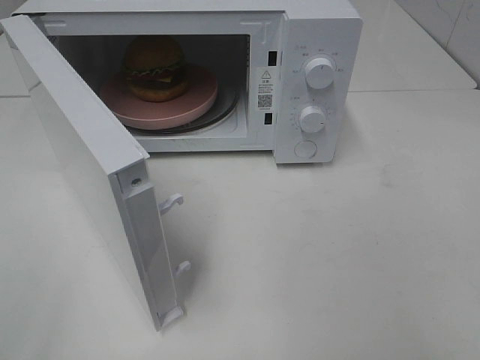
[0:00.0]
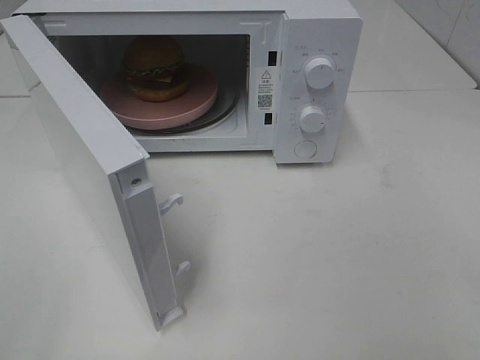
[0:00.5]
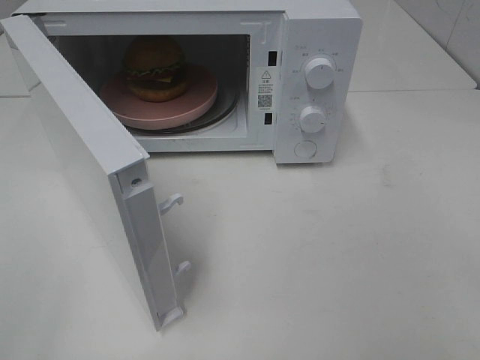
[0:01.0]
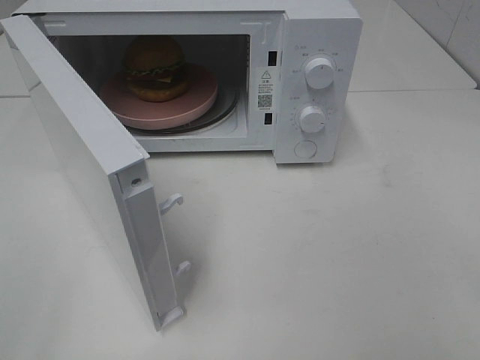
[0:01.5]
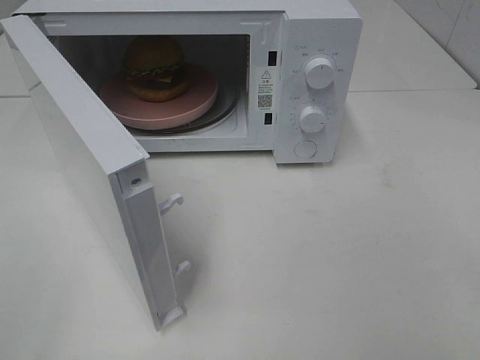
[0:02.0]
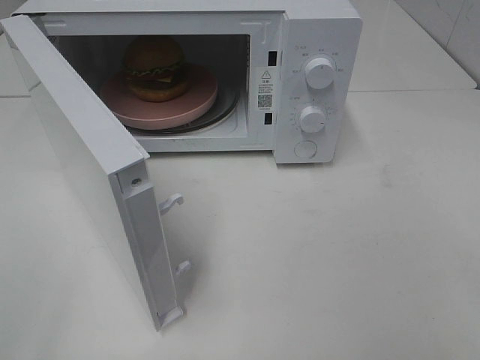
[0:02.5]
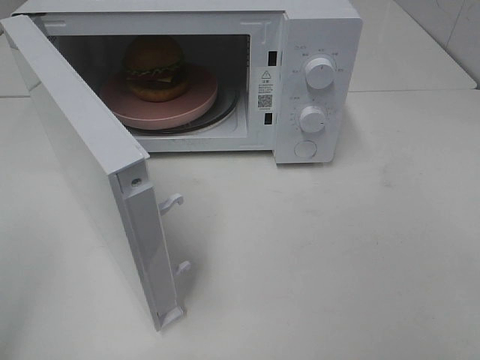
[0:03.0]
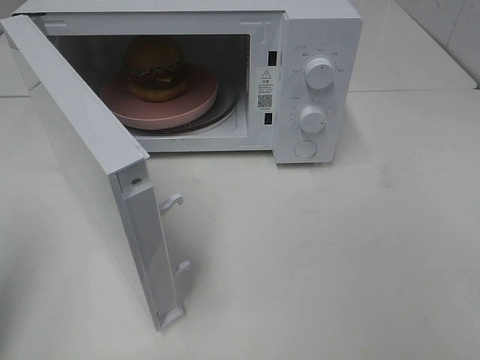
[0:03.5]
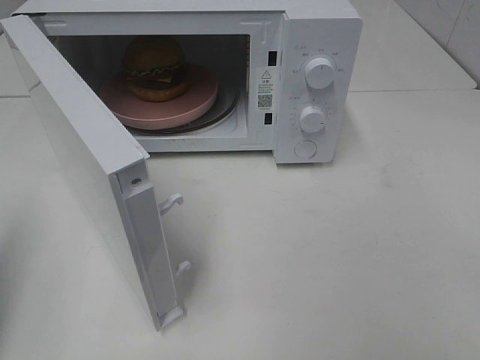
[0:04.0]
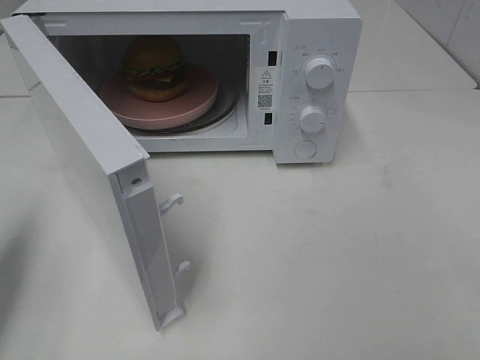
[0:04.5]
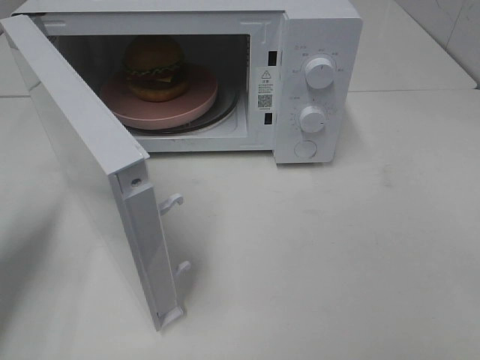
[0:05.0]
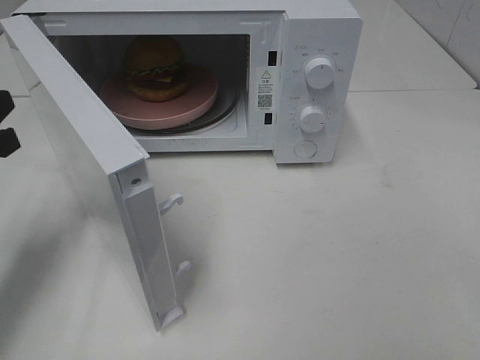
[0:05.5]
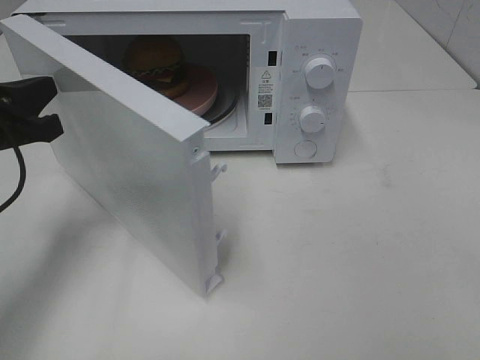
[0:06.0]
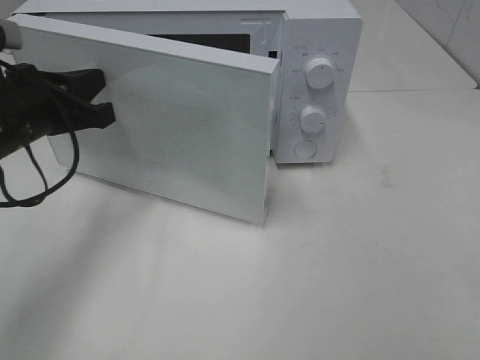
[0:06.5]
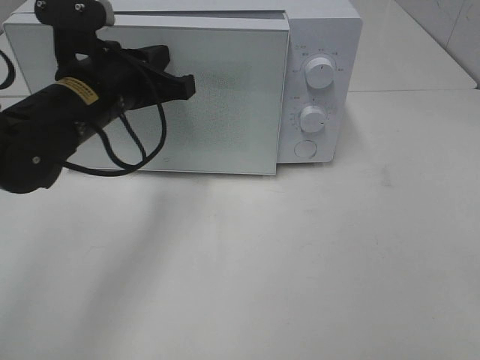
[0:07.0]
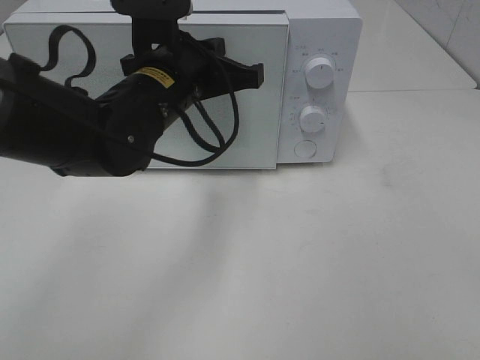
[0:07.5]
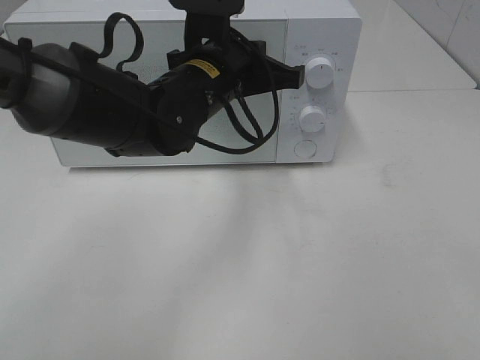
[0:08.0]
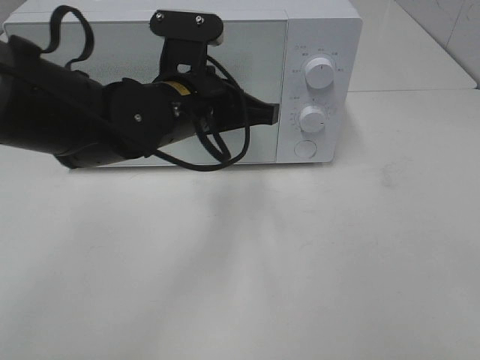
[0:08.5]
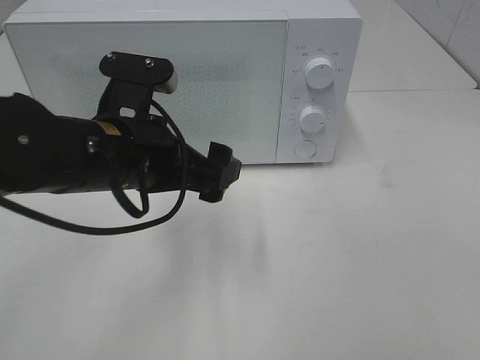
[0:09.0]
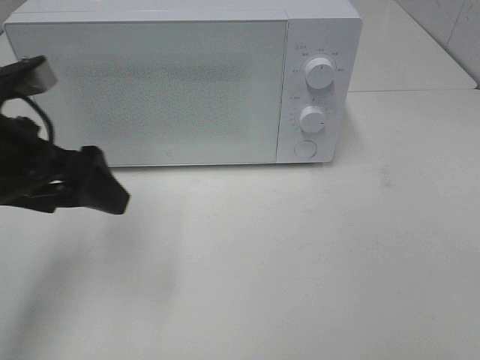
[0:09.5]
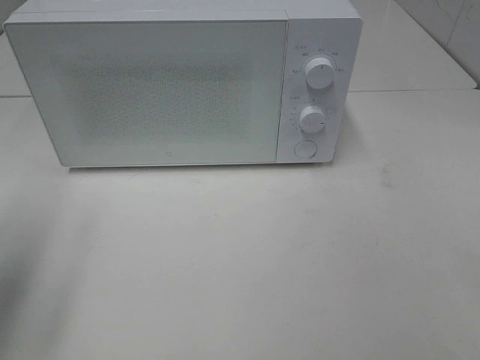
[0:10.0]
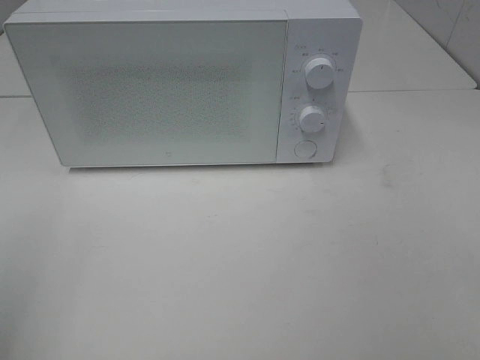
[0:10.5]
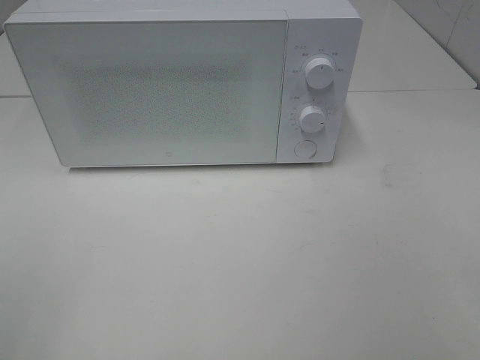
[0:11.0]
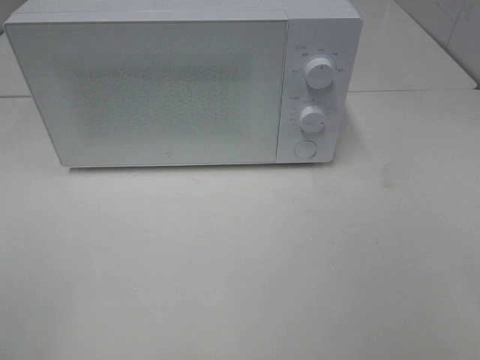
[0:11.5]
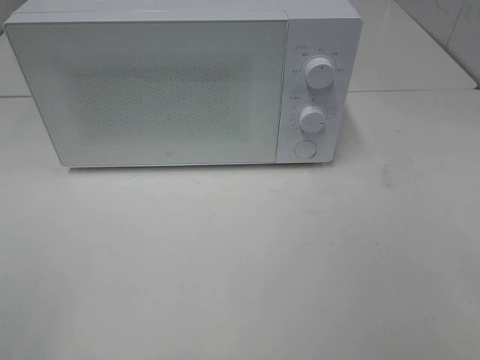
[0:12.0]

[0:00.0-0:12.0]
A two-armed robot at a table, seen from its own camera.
Task of the whole recording: Heat the burger.
Step, 0:00.0 to 0:08.5: Left hand: close the microwave door.
0:02.0 to 0:04.0: The left gripper heads forward, covering about 15 cm, and closes its fingers.
0:04.0 to 0:06.0: The left gripper shifts about 15 cm forward, to the right and downward.
0:06.0 to 0:08.0: The left gripper is displaced to the right by roughly 25 cm.
0:08.0 to 0:10.0: The left gripper heads to the left and backward, covering about 35 cm, and opens up.
0:10.0 to 0:12.0: The left gripper moves backward, about 20 cm.

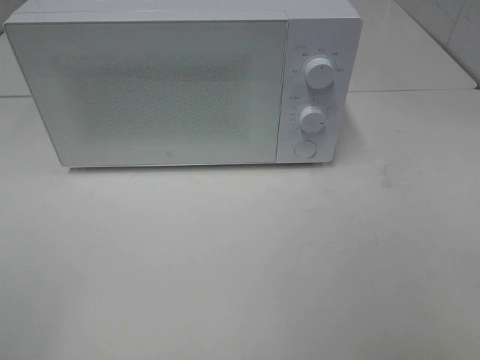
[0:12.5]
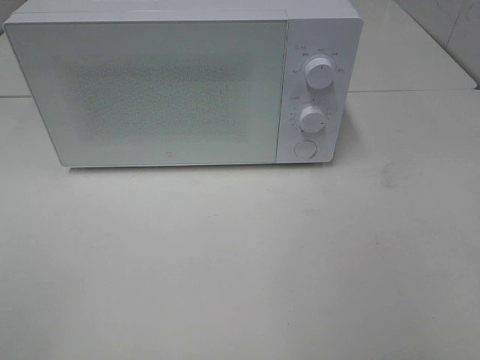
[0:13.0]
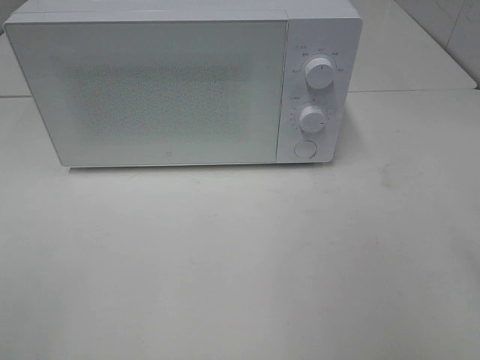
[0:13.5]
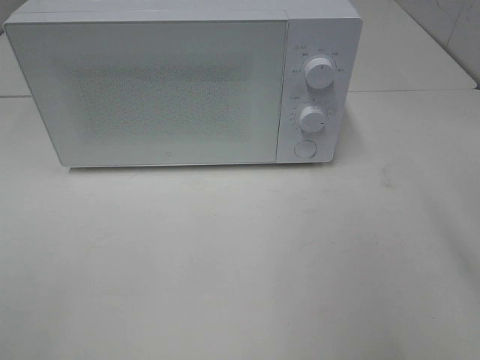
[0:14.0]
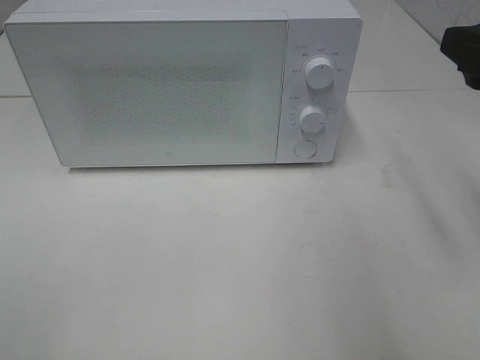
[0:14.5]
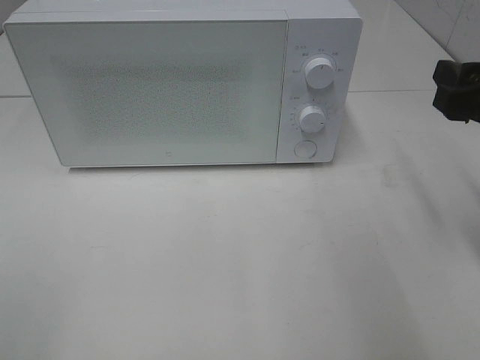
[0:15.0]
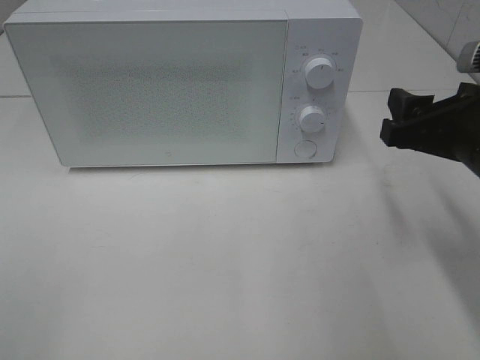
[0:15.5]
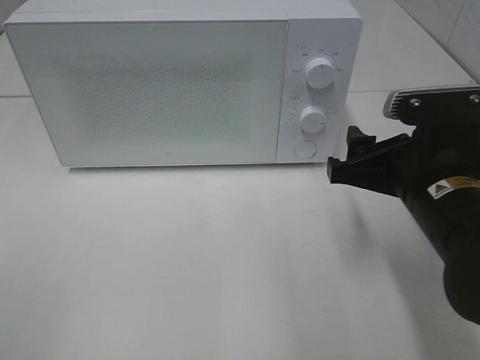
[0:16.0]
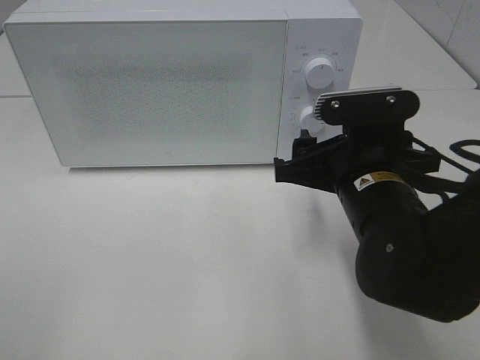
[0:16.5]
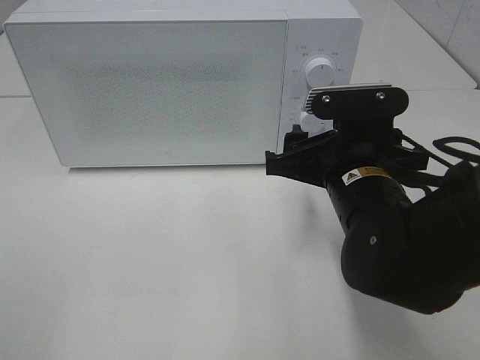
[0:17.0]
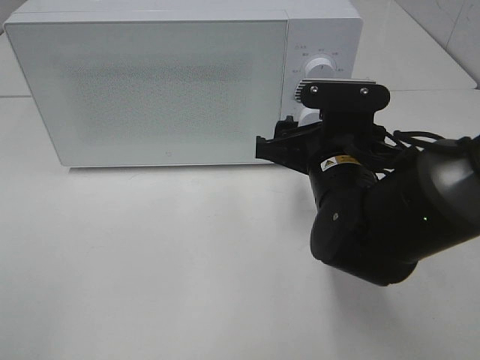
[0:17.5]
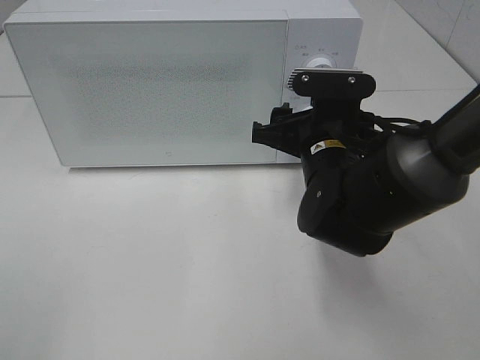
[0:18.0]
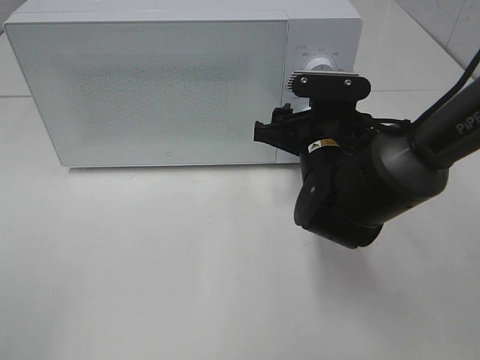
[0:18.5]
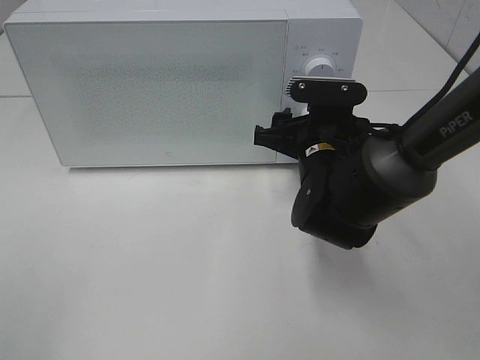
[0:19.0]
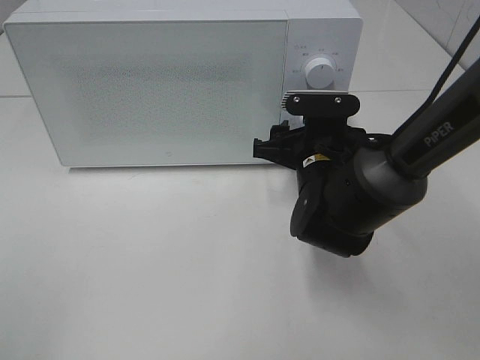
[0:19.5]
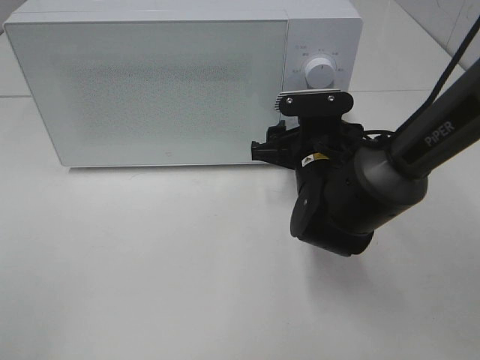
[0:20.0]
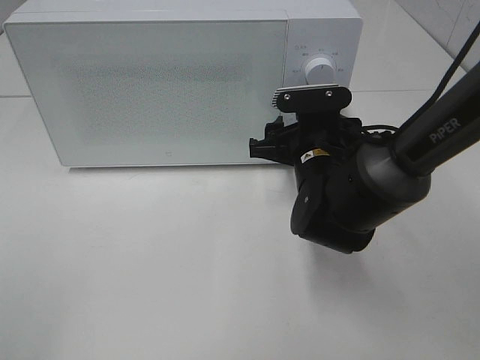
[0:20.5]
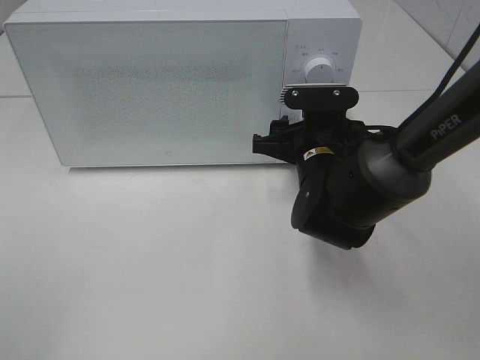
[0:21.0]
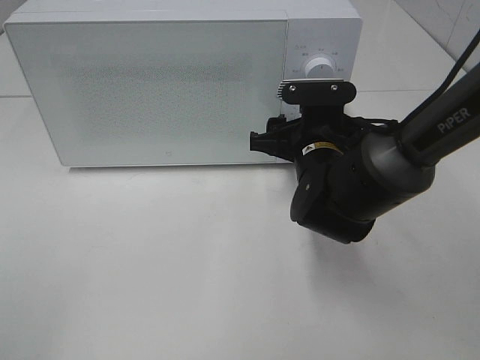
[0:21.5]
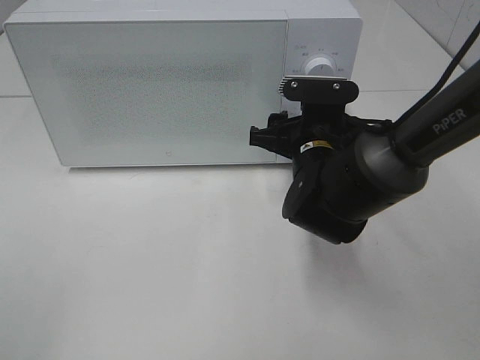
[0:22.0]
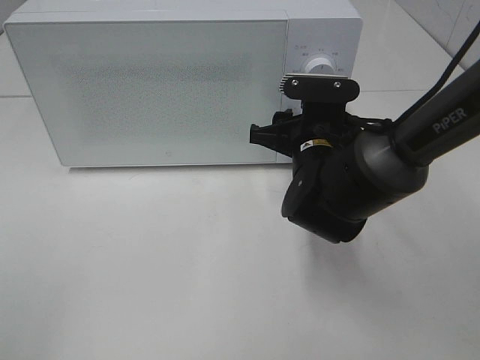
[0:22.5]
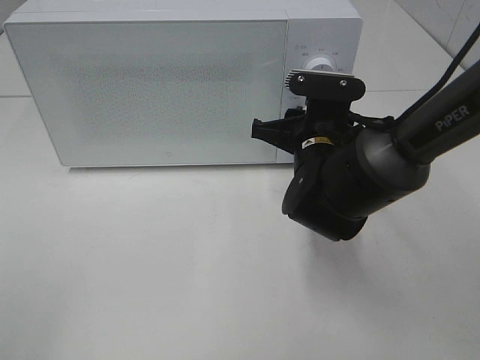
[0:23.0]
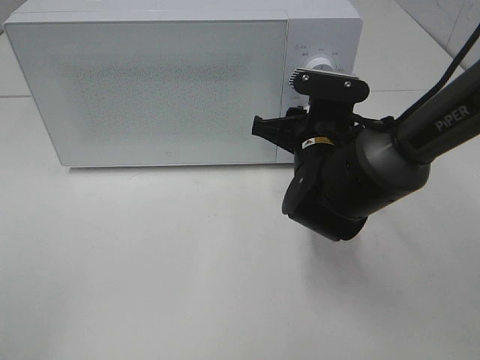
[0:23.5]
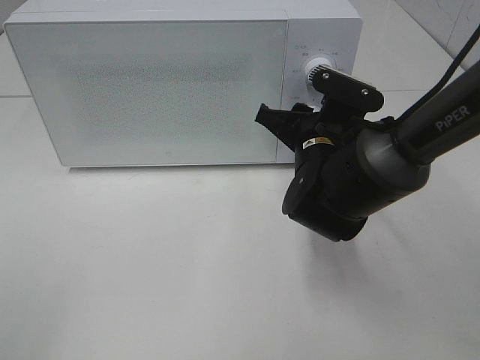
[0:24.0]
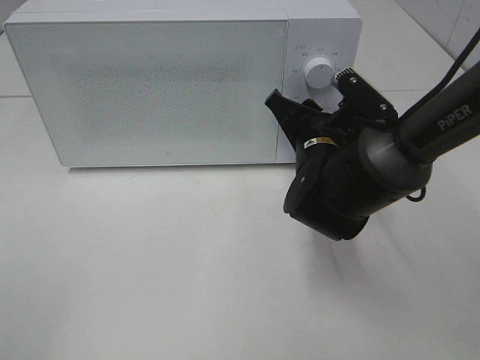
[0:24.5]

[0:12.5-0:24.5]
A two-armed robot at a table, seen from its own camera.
Task of the whole recording: Heat the burger.
0:12.5 to 0:14.5: The right gripper is displaced forward by approximately 20 cm.
0:14.5 to 0:16.5: The right gripper is displaced to the left and downward by about 20 cm.
0:16.5 to 0:18.5: The right gripper is displaced forward by some 10 cm.
0:18.5 to 0:22.5: The grippers make only small movements.

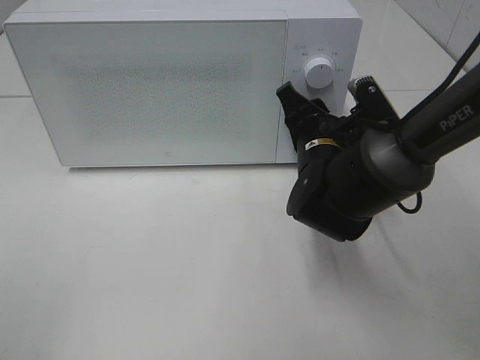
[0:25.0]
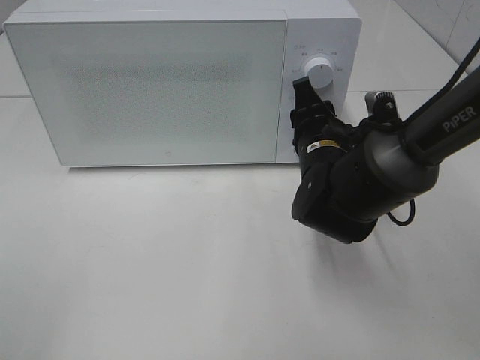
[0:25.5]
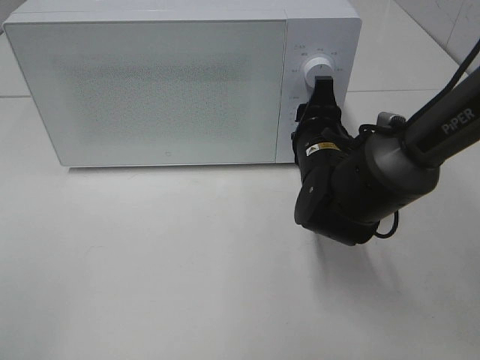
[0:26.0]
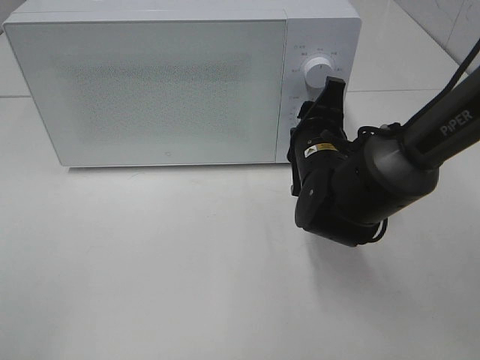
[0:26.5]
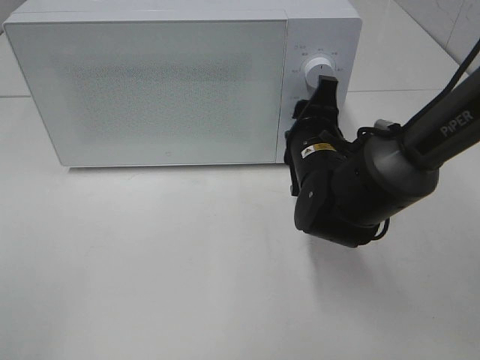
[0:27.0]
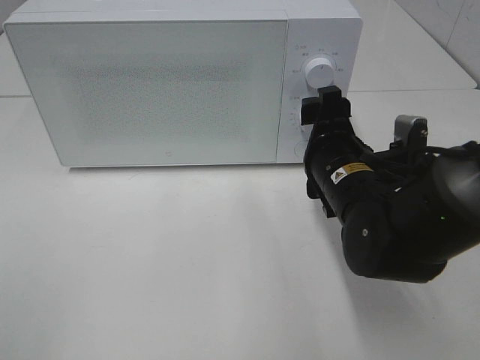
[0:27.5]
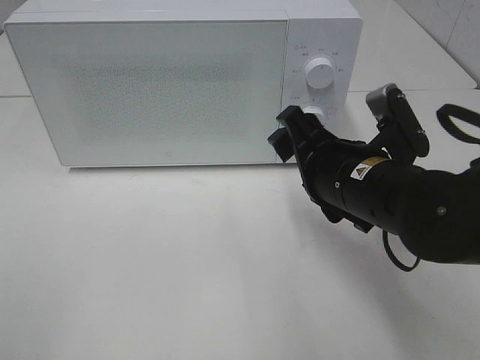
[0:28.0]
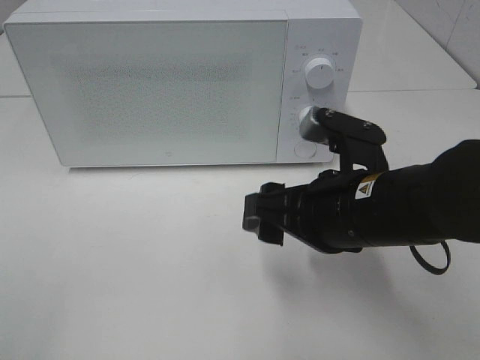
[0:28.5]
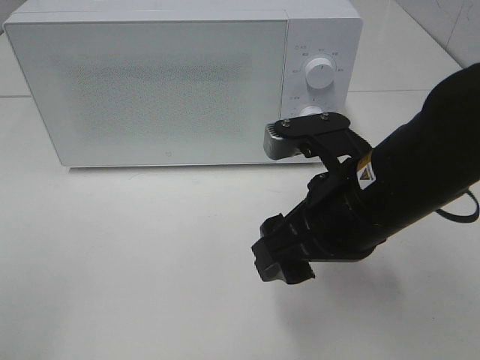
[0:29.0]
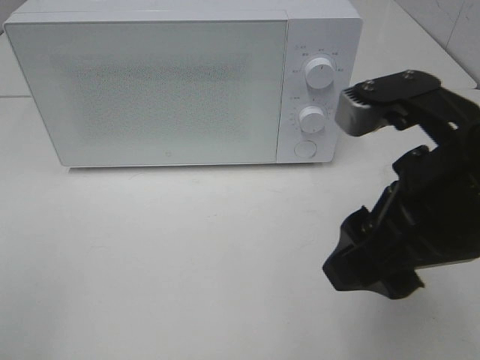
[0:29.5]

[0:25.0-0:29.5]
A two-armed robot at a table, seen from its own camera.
Task of the whole recording: Heat the burger.
Step, 0:25.0 to 0:27.5: Right hand: twist timer button.
0:27.0 to 0:29.5: The right gripper moves backward and upward, some 20 cm.
